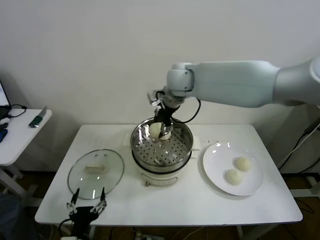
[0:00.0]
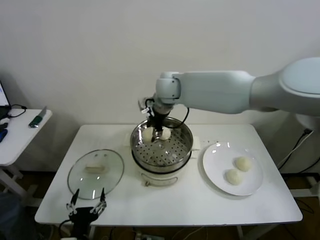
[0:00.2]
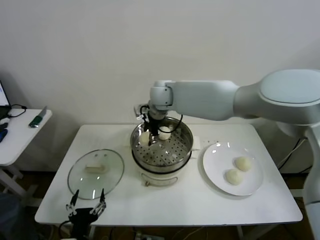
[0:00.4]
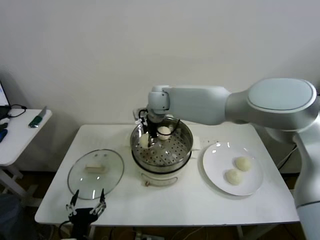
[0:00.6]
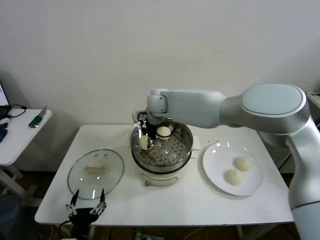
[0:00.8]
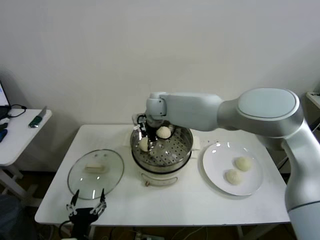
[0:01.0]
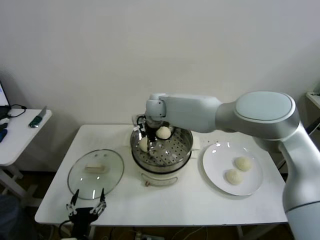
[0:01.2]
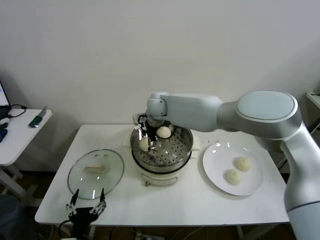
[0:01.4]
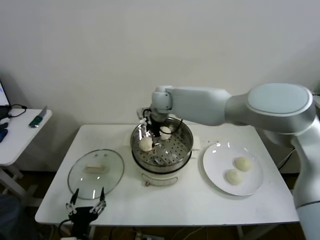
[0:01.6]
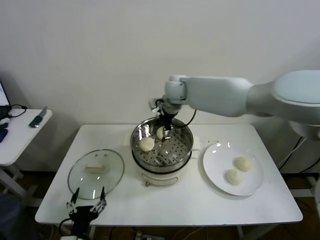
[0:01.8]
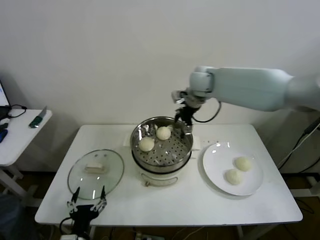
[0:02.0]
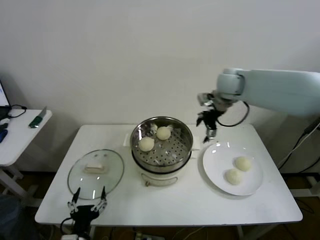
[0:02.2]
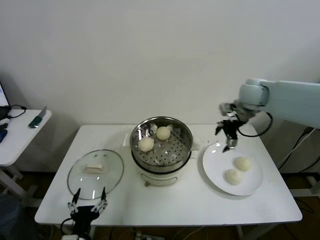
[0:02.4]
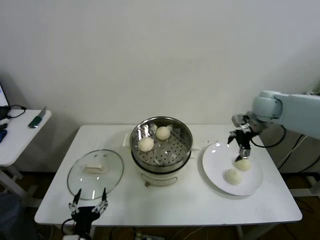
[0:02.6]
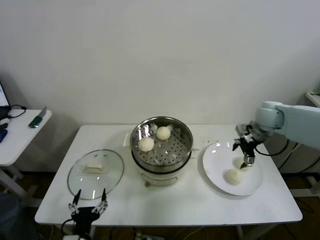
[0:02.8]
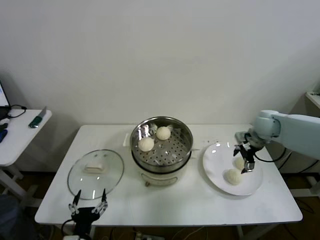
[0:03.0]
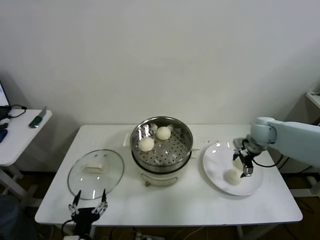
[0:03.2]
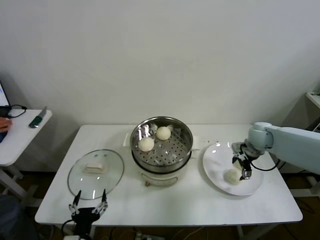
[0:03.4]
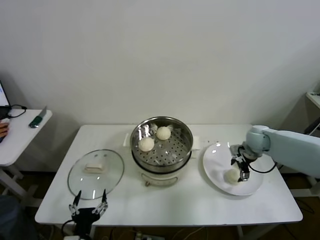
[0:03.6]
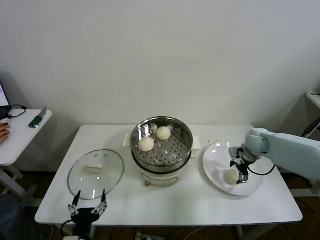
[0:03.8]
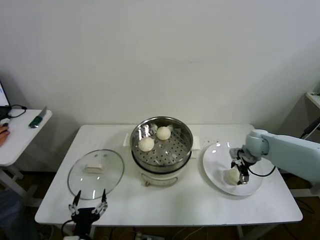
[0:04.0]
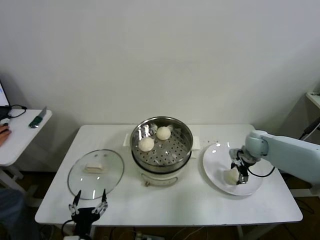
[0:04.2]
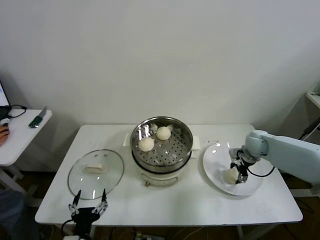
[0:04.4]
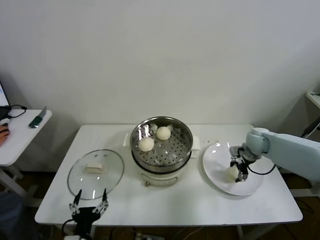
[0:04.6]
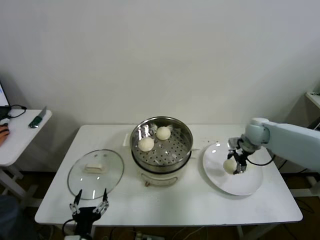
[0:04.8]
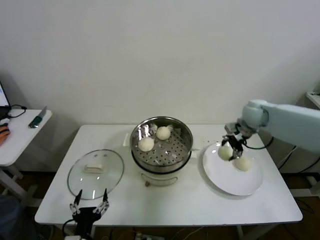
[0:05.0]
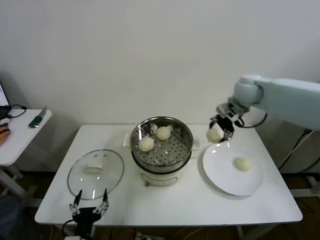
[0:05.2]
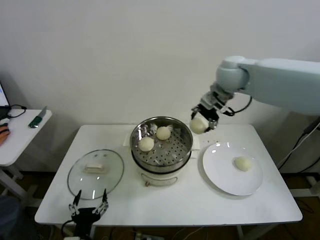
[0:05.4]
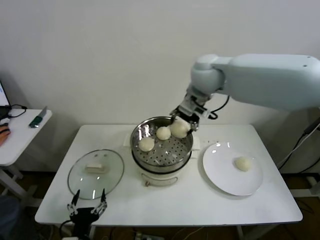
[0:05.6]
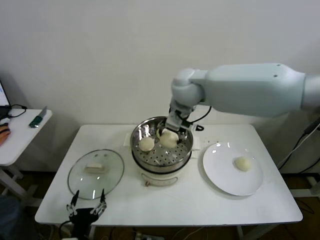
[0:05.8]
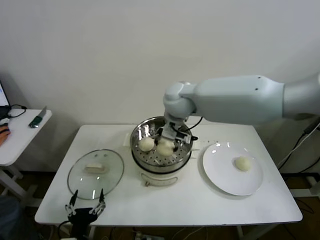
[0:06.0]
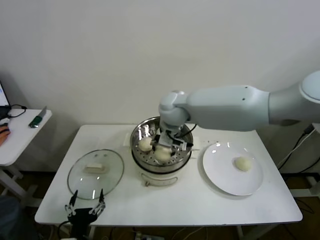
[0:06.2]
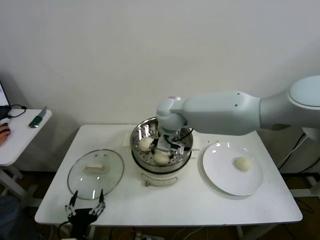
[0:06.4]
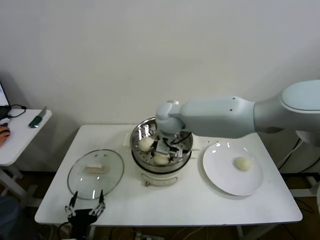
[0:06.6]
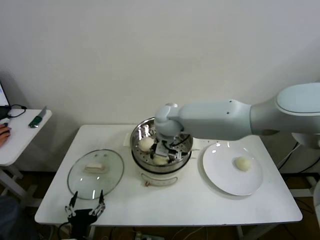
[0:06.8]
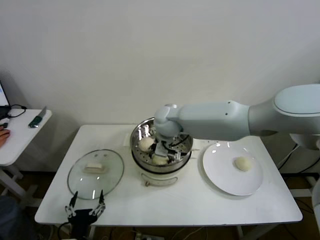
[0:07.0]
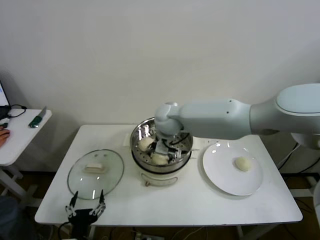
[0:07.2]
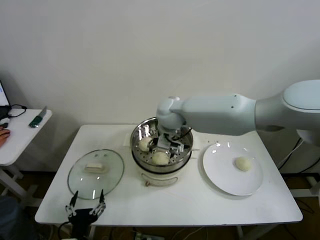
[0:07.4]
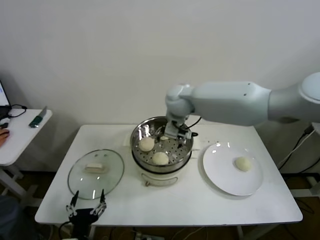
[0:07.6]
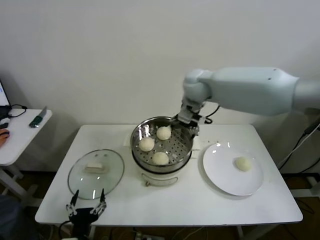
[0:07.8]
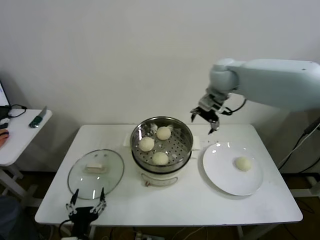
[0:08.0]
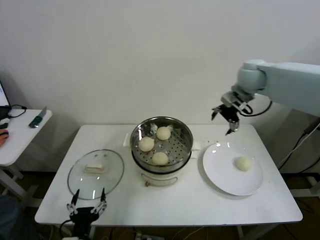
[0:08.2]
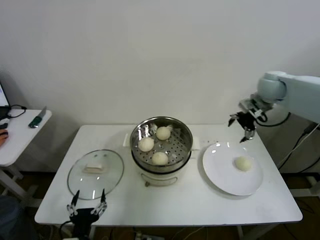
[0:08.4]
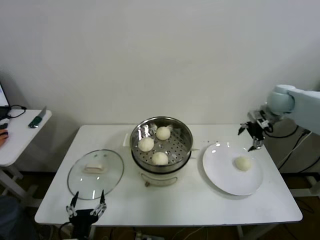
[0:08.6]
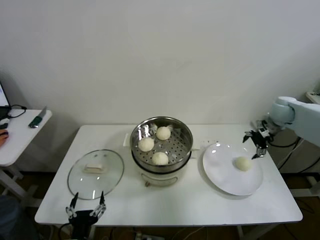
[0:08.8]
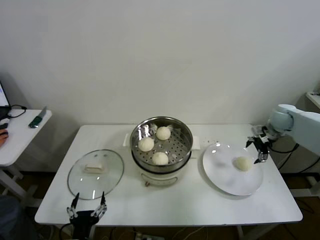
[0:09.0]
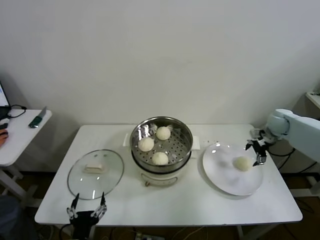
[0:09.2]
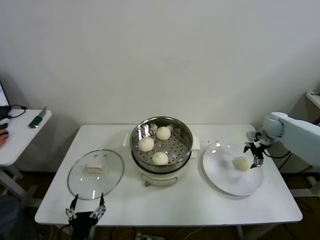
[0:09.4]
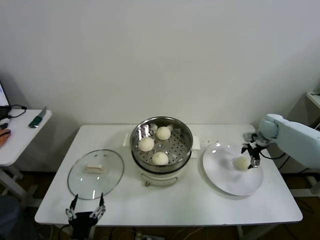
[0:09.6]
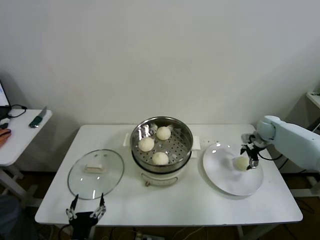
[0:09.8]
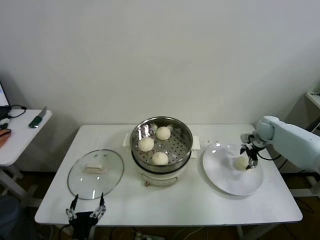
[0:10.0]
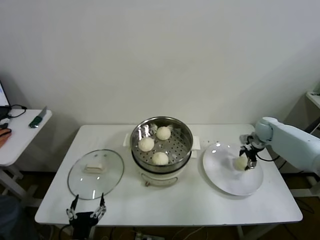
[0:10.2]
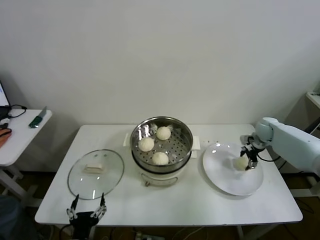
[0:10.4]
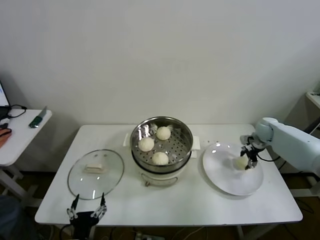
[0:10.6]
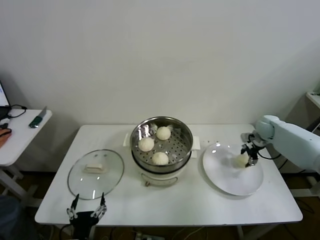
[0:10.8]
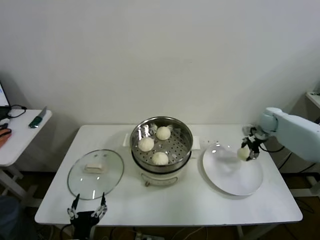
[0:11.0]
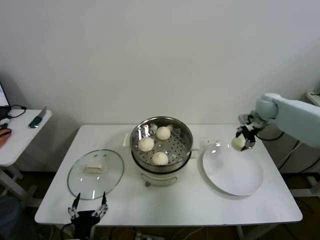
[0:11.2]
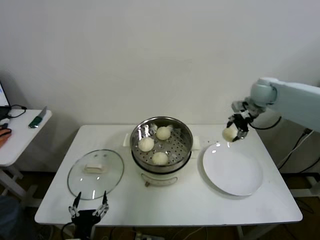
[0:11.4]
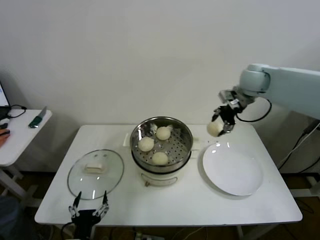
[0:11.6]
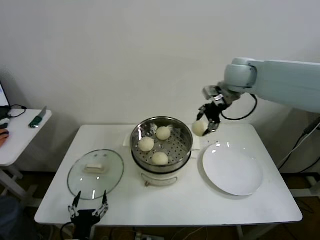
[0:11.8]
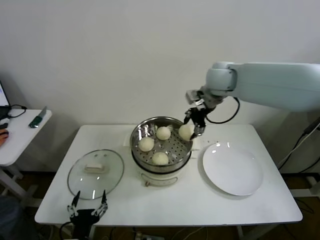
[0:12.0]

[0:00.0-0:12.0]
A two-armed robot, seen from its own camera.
Step, 0:01.4 to 0:04.2: Grasp the baozi in the plate with right gripper.
Step, 0:04.4 to 0:06.8: Place the baozi on the steamer with right gripper.
Step, 0:07.2 to 0:10.6: Grasp the baozi in the plate with right gripper.
0:00.0 to 0:01.6: The right gripper travels downward by about 10 cm, and opens its fingers.
0:01.6 to 0:03.0: The right gripper shifts approximately 35 cm to the right.
0:03.0 to 0:04.4: The right gripper goes approximately 10 cm downward, and closes its fingers.
0:04.4 to 0:06.0: The right gripper is displaced to the left and upward by some 40 cm.
0:06.0 to 0:07.6: The right gripper goes downward and returns, some 10 cm each way, and opens its fingers.
0:07.6 to 0:09.0: The right gripper heads to the right, covering approximately 40 cm.
0:09.0 to 0:10.4: The right gripper moves downward, approximately 10 cm, and closes its fingers.
0:10.4 to 0:12.0: The right gripper goes about 35 cm upward and to the left.

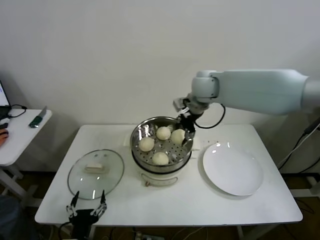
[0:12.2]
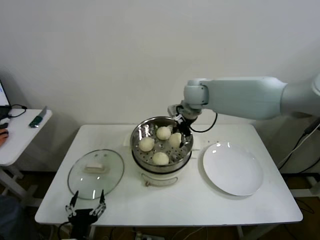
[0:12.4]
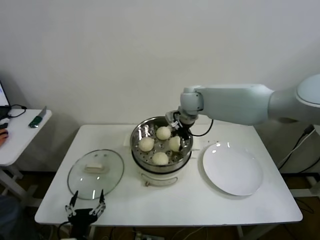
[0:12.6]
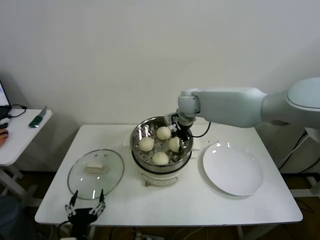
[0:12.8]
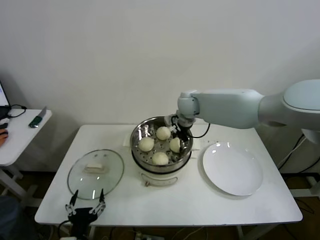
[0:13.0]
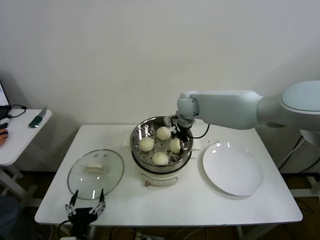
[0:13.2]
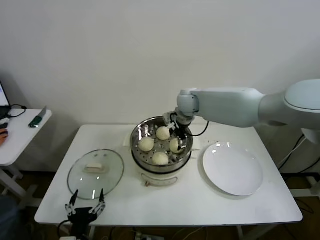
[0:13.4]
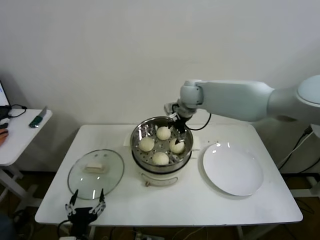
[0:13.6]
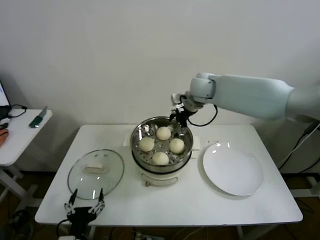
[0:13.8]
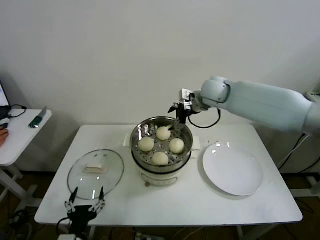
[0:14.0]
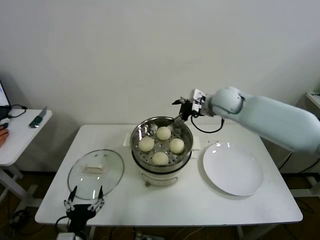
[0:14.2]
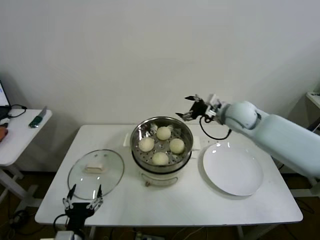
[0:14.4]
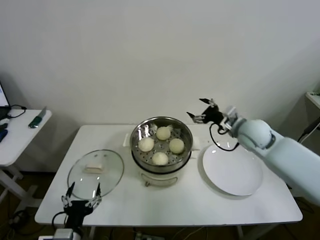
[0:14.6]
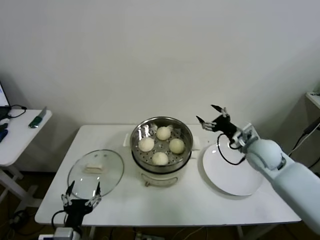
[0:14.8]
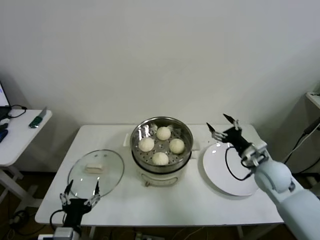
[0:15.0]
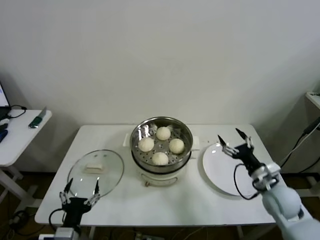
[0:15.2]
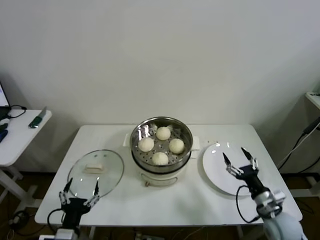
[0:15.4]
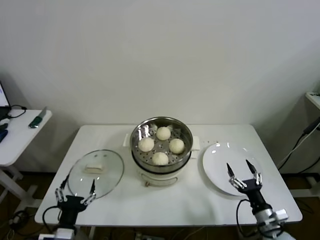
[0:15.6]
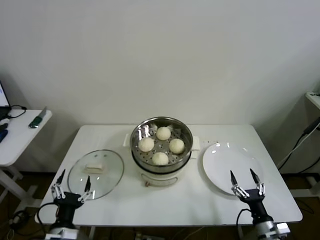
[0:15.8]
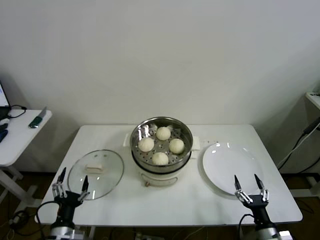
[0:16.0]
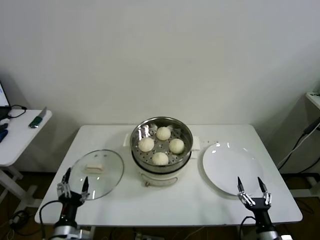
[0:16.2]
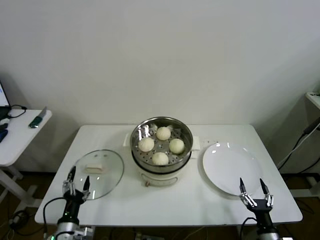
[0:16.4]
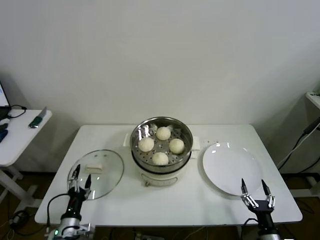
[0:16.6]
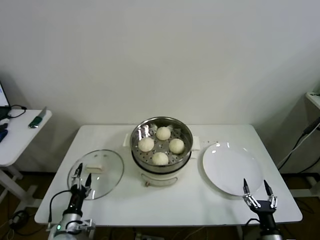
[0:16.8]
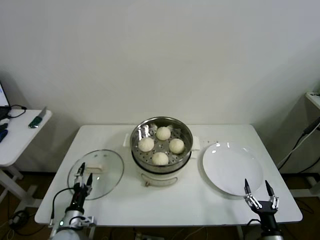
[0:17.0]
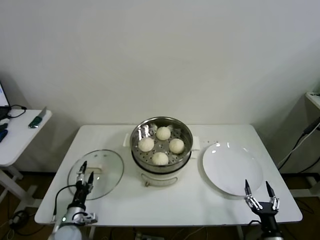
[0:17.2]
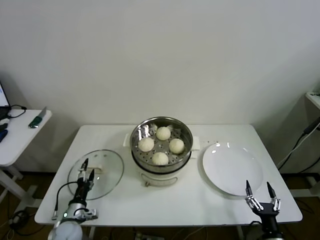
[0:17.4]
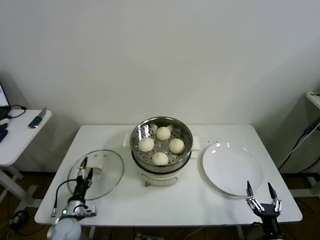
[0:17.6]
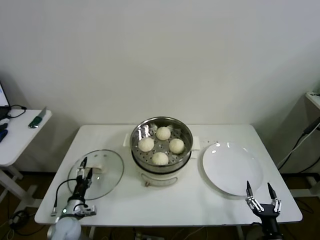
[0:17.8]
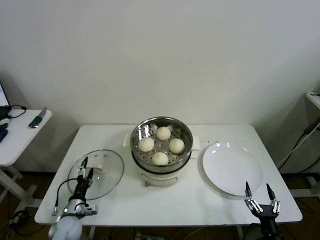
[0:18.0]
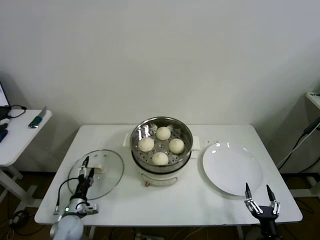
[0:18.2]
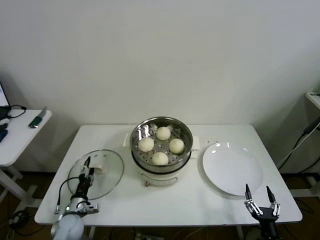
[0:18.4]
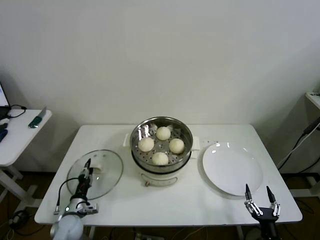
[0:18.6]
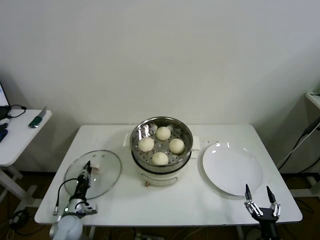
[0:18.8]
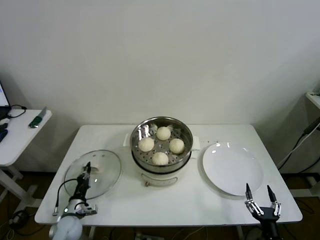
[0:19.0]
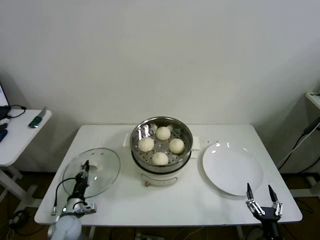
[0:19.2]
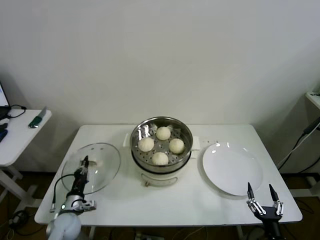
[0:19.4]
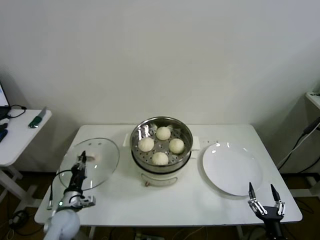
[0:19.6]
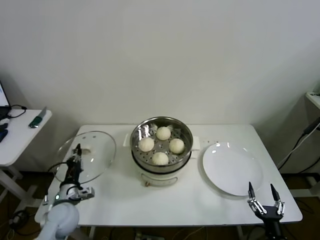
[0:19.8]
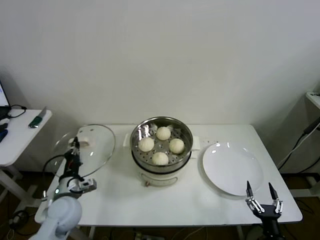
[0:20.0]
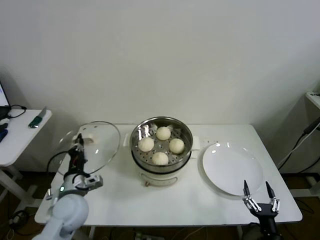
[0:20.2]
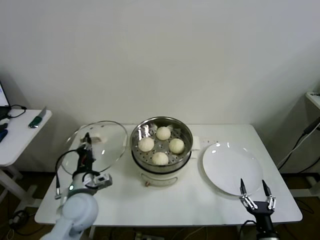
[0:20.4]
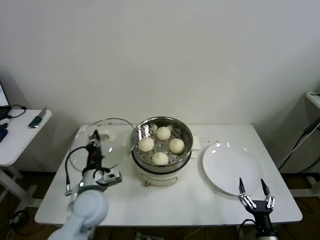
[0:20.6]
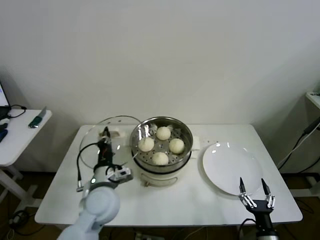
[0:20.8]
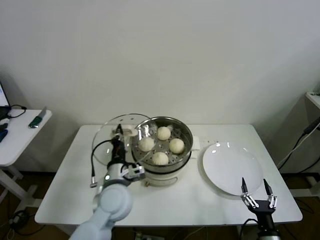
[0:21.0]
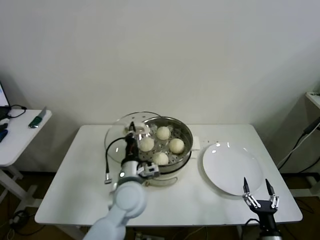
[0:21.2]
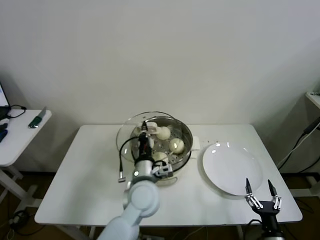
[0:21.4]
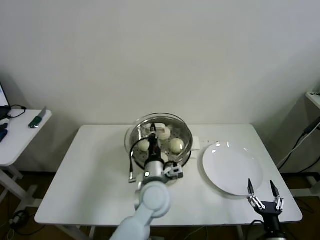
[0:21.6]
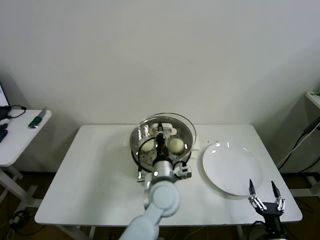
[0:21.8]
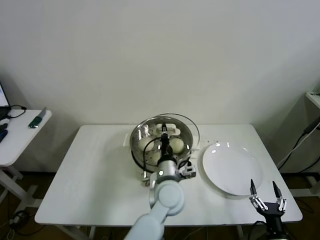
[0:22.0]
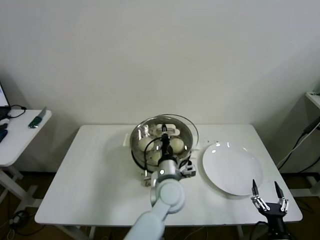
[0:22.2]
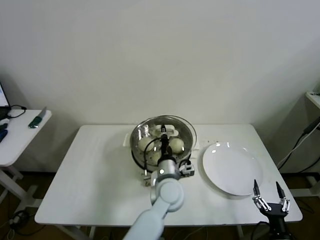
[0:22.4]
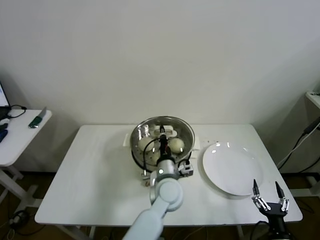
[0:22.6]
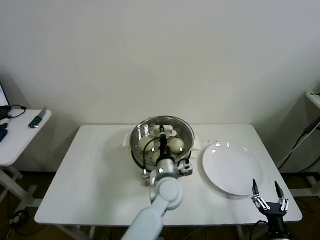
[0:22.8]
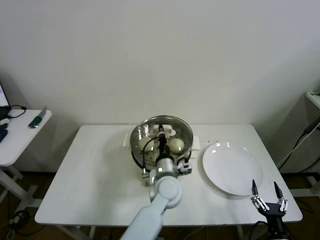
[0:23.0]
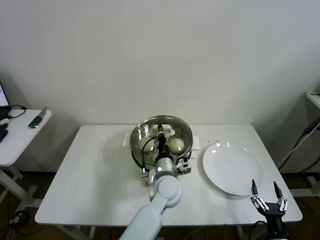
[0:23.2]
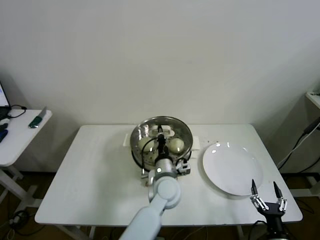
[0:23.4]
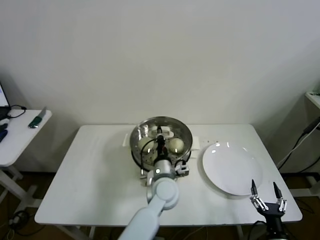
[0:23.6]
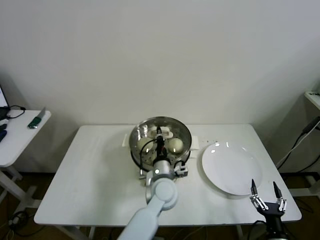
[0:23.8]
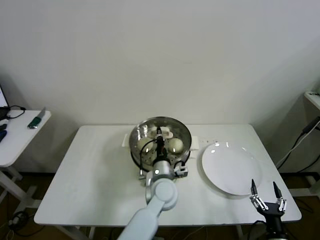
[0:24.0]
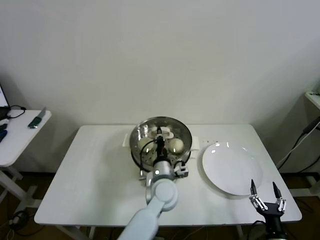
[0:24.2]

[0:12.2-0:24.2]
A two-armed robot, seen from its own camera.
Step, 0:13.4 to 0:18.8: Grasp the pot lid with left gripper.
0:12.2 to 0:13.8: The right gripper goes downward and returns, roughly 10 cm each way, and opens.
0:13.8 to 0:15.2: The right gripper travels backward, downward and to the right by about 40 cm.
0:15.2 to 0:16.6: The right gripper heads backward and downward, covering about 25 cm; the left gripper travels downward, to the left and forward by roughly 10 cm.
0:16.6 to 0:18.2: The left gripper travels forward and downward by about 10 cm.
0:18.2 to 0:19.8: The left gripper goes roughly 10 cm upward, and closes.
0:19.8 to 0:21.2: The left gripper is displaced to the right and upward by about 25 cm.
0:21.2 to 0:22.6: The left gripper moves to the right, some 10 cm.
0:22.6 to 0:24.2: The grippers stay close to where they were, moving slightly.
